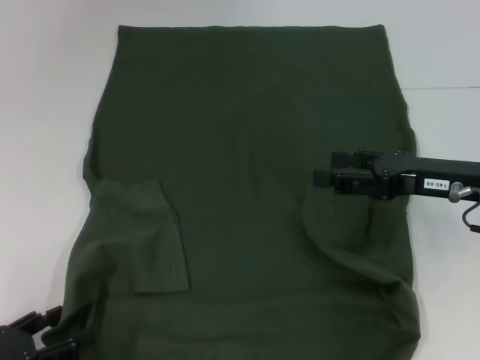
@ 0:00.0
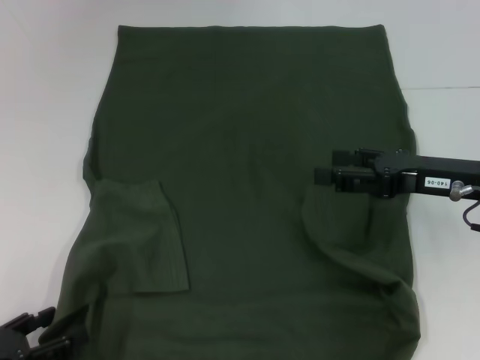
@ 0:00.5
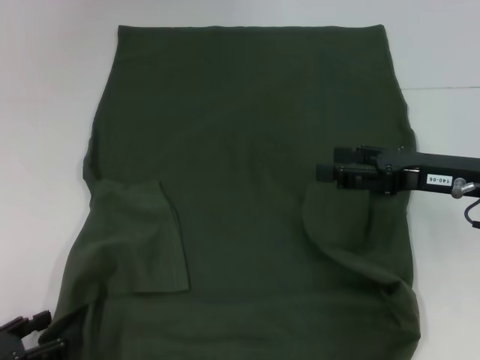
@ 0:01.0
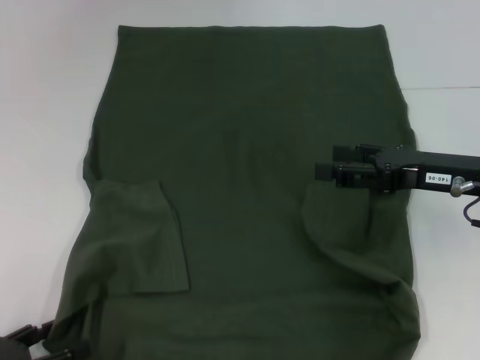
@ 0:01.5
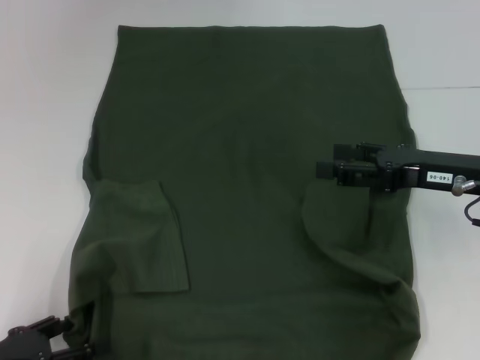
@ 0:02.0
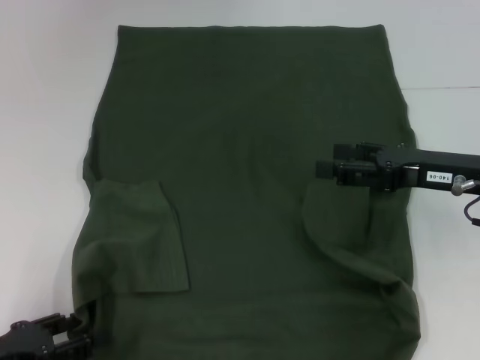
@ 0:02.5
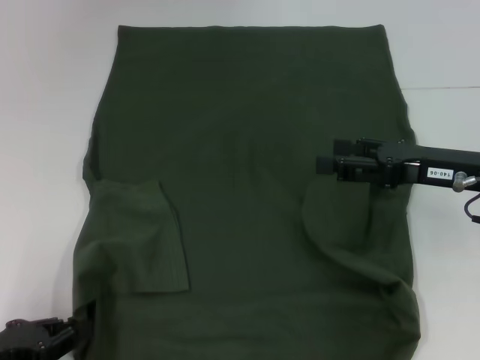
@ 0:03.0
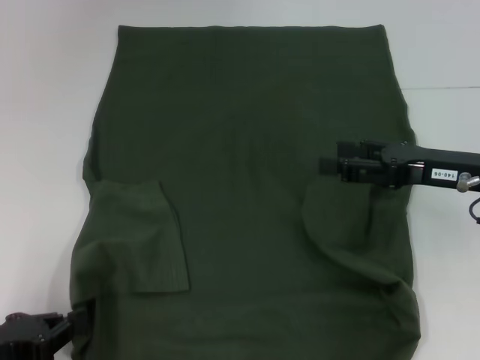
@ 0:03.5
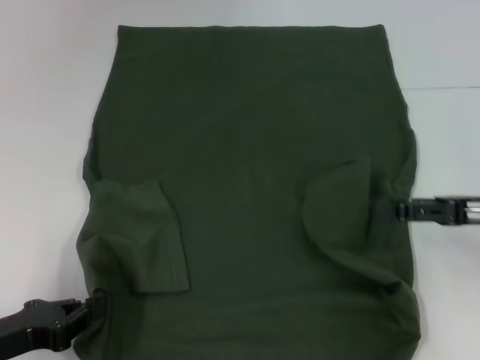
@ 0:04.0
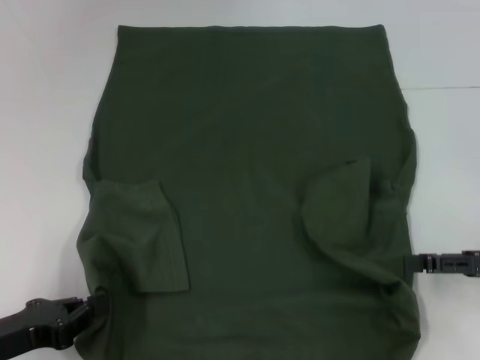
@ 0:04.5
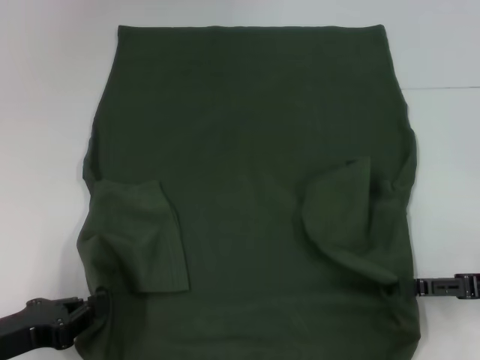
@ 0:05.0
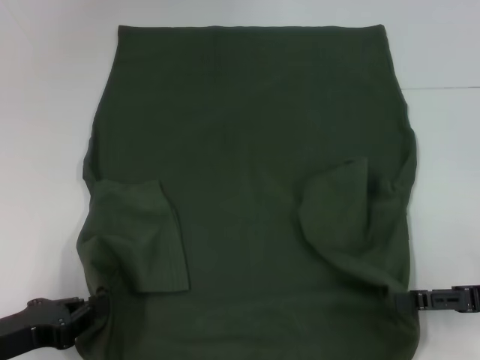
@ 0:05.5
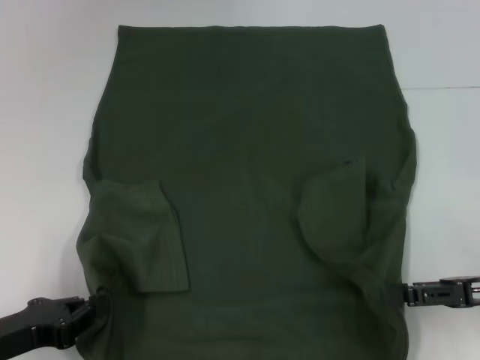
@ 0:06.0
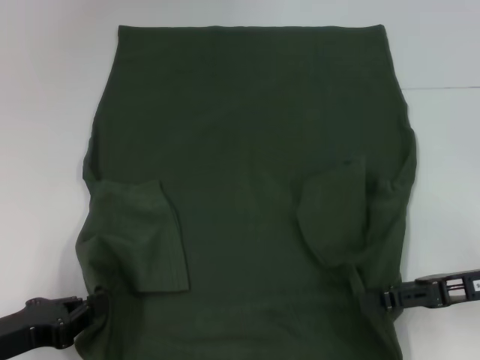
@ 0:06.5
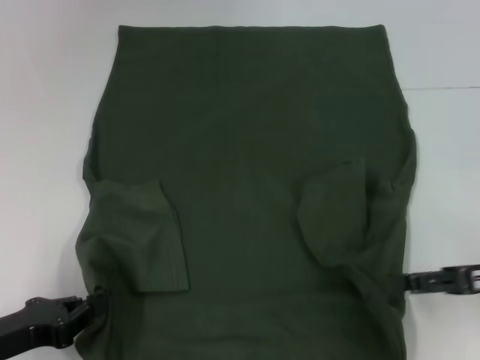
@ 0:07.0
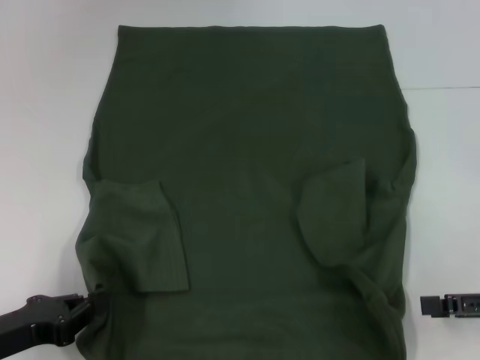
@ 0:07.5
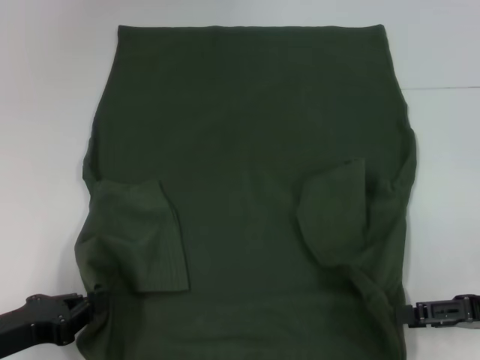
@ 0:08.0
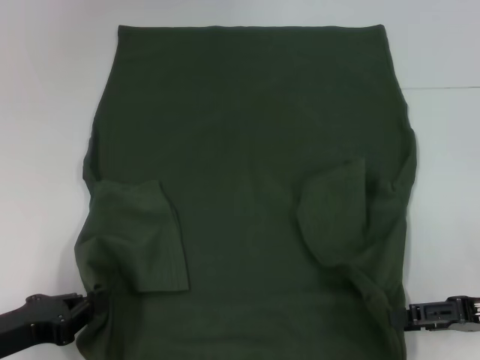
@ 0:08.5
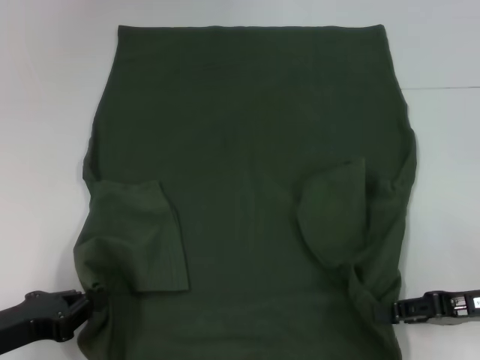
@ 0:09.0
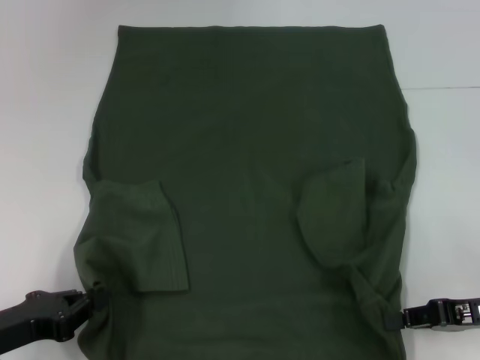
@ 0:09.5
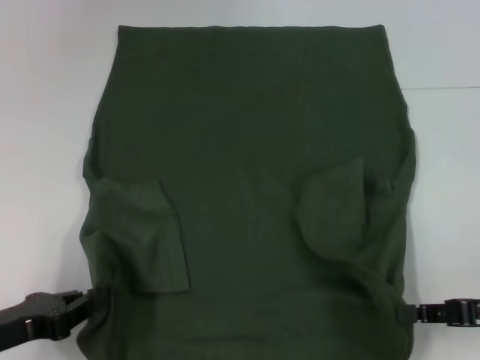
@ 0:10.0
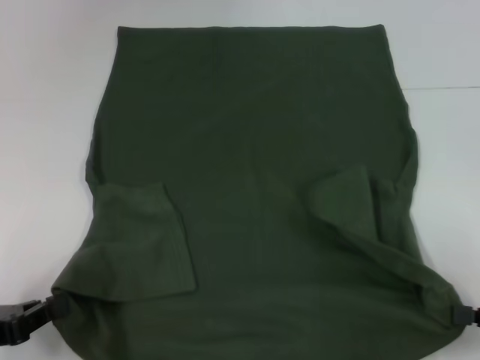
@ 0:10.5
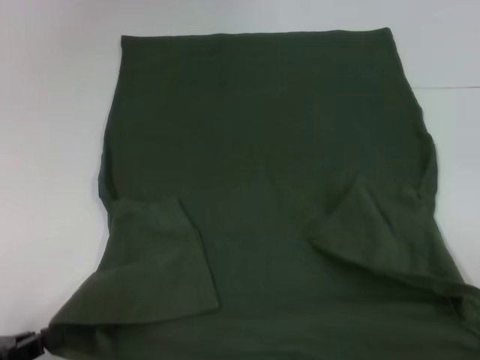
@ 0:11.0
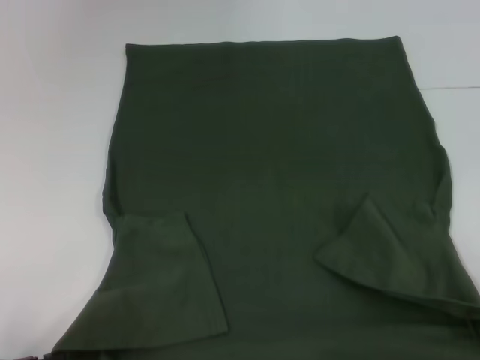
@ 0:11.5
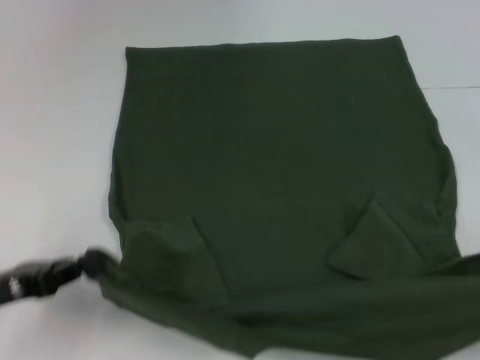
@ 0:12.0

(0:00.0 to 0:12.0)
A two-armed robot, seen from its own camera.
Step, 0:00.0 - 0:03.0: Grab the bottom left corner with your left hand.
Step, 0:03.5 - 0:09.5: Grab the bottom right corner with your right hand.
0:00.0 - 0:02.0: The grippers stay close to where they were, moving slightly.
0:02.0 - 0:04.0: The left gripper closes up. The right gripper is displaced to the right by about 5 cm.
0:04.0 - 0:06.0: The right gripper changes place by some 5 cm.
0:06.0 - 0:08.0: The grippers make only small movements.
0:08.0 - 0:10.0: The right gripper closes up.
0:10.0 - 0:12.0: The right gripper travels to the right and backward by some 10 cm; the left gripper travels backward and back again, roughly 5 cm each way.

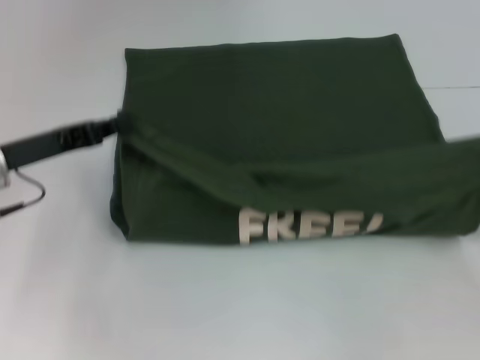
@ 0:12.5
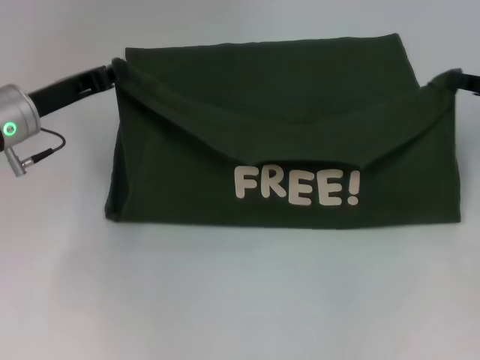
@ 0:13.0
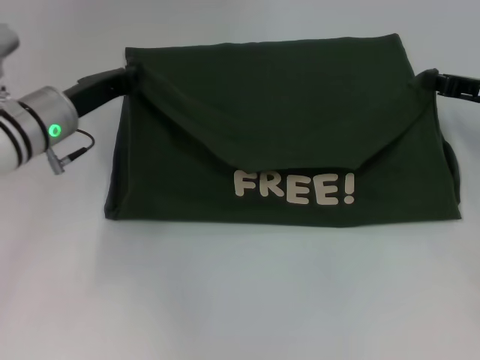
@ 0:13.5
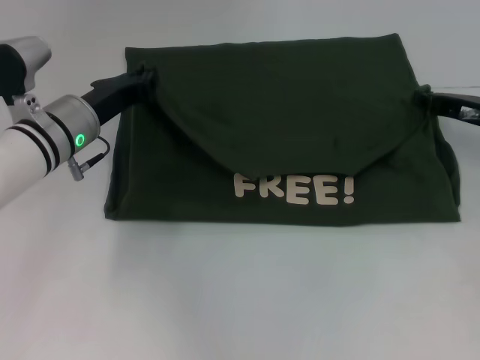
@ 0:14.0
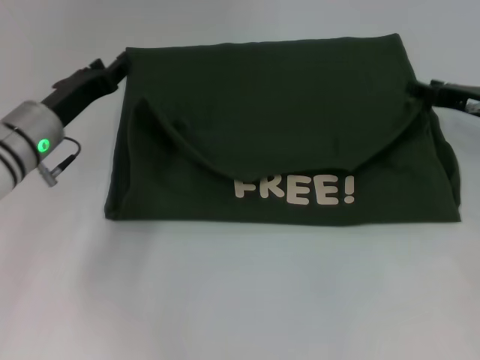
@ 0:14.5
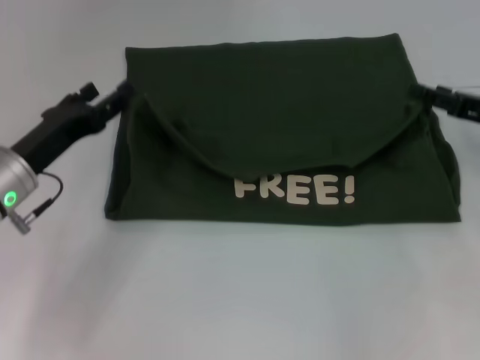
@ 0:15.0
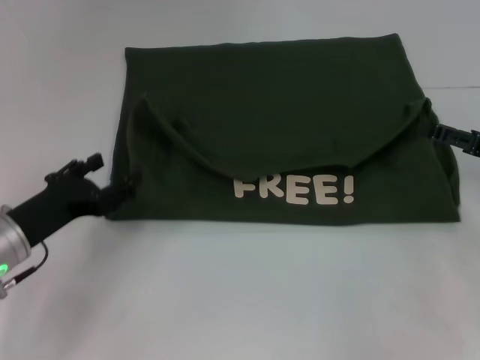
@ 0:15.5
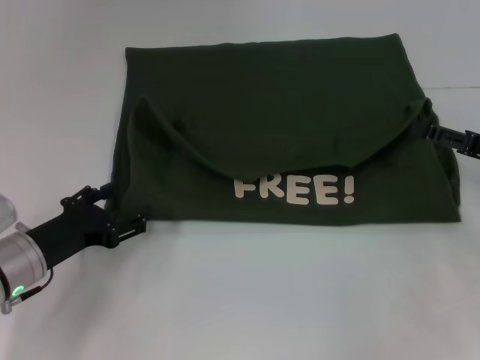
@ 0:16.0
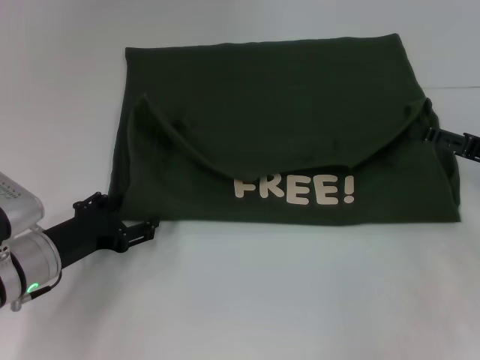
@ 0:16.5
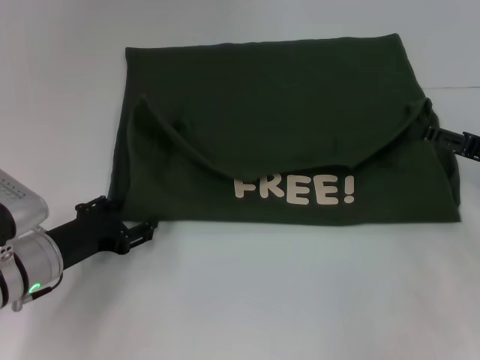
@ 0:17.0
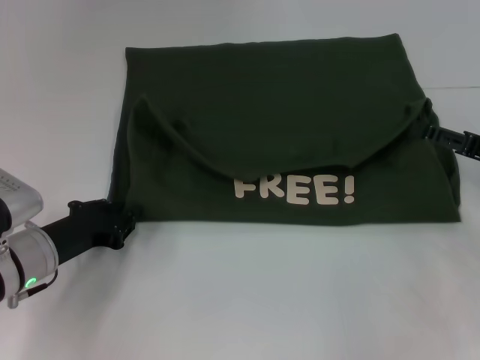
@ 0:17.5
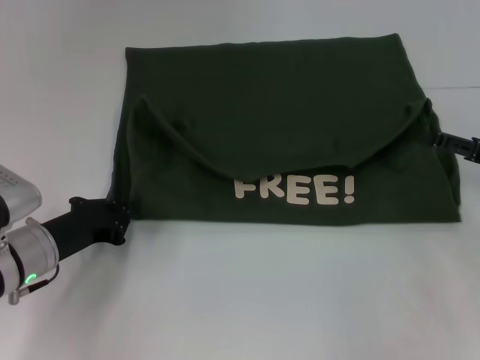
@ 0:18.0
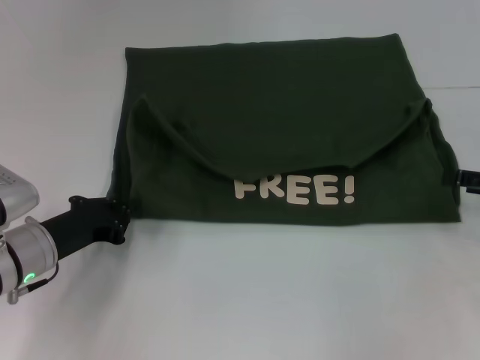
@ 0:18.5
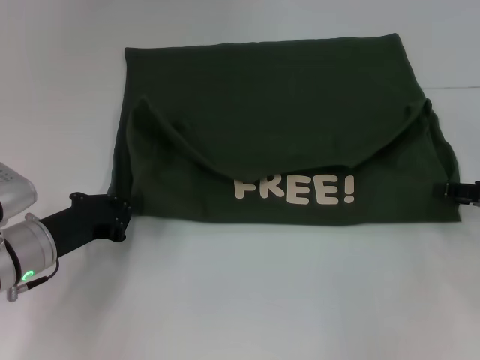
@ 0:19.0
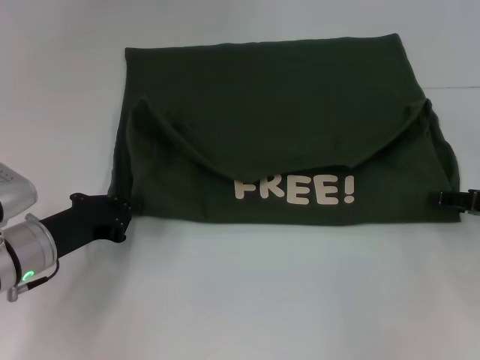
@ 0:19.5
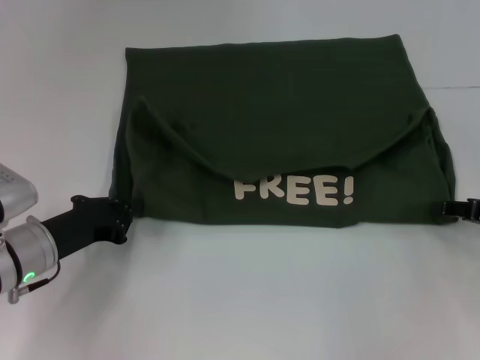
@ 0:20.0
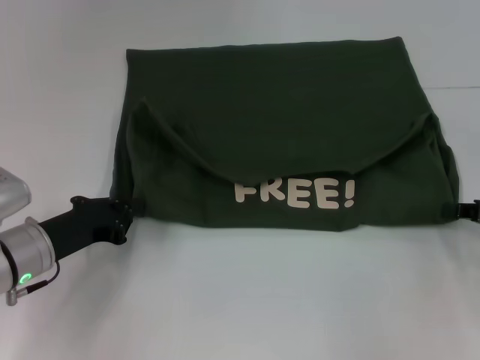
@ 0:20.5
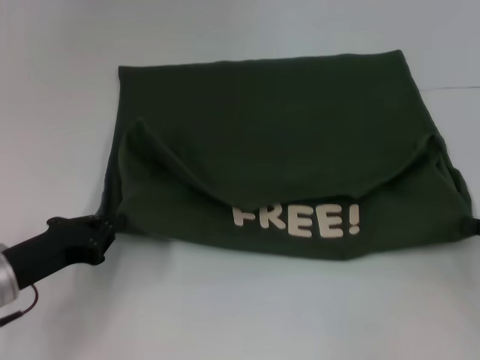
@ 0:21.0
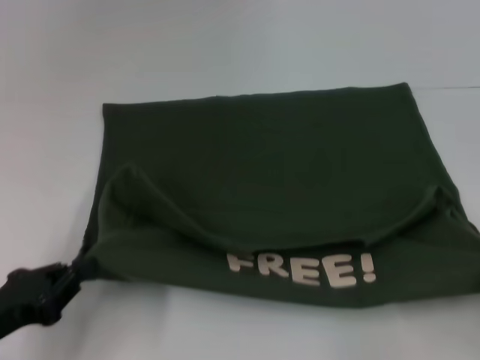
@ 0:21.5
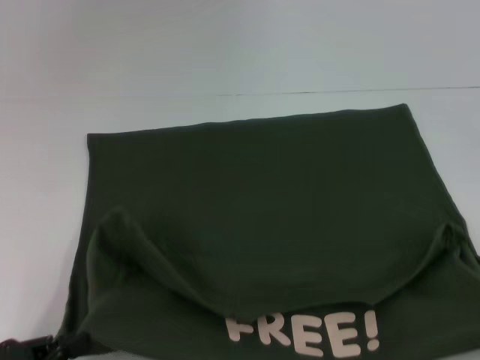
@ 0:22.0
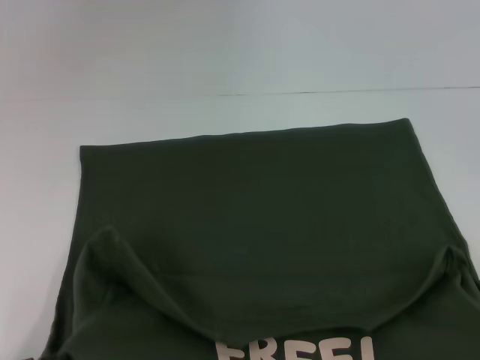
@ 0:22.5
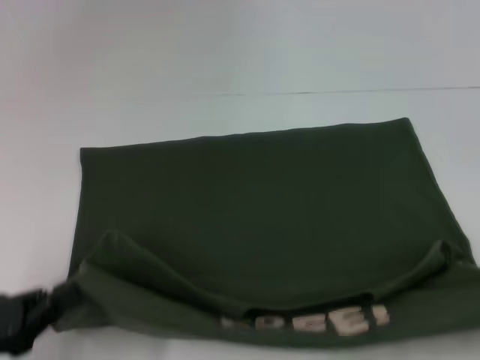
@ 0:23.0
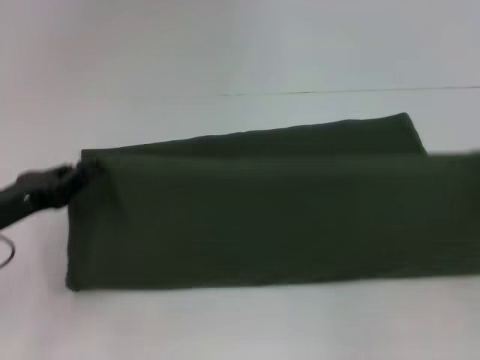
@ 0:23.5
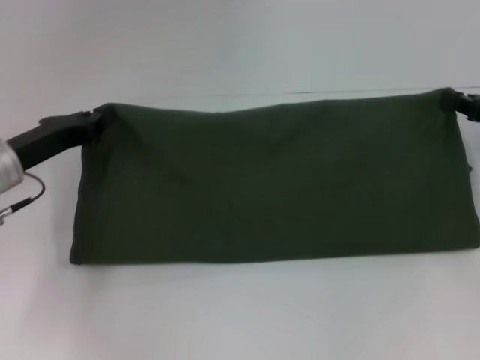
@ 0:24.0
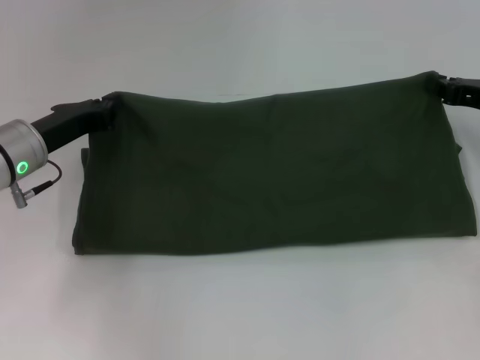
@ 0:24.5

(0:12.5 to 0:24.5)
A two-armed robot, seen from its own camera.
Step, 0:14.5 - 0:22.0: Pull the clothes with your left hand.
Step, 0:14.5 - 0:22.0: Pull the clothes with your right hand.
0:12.5 - 0:14.5: The right gripper shifts approximately 15 cm forward and to the left, and opens its fingers, while the left gripper shifts by approximately 5 cm, and opens its fingers.
0:14.5 - 0:16.5: The right gripper shifts roughly 10 cm backward, and opens up. Meanwhile the left gripper shifts approximately 10 cm backward and downward, and opens its fingers.
0:16.5 - 0:18.5: The left gripper closes.
0:18.5 - 0:20.5: The right gripper closes.
0:20.5 - 0:22.5: The left gripper moves backward and to the left, approximately 20 cm; the right gripper moves backward, roughly 20 cm.
0:22.5 - 0:24.5: Both grippers travel together forward, about 25 cm.

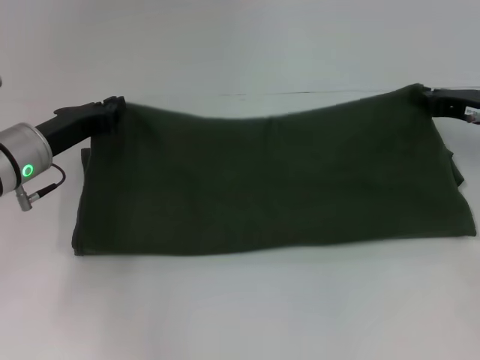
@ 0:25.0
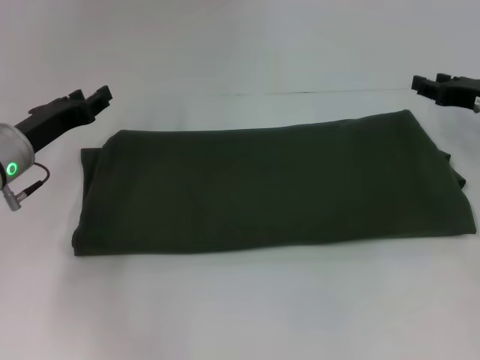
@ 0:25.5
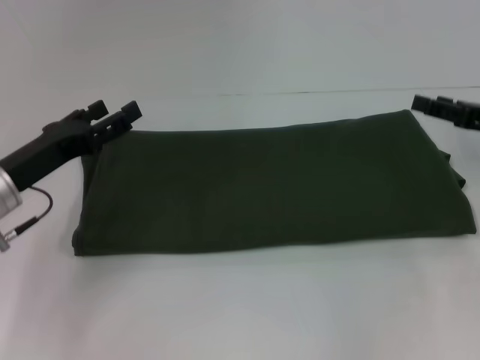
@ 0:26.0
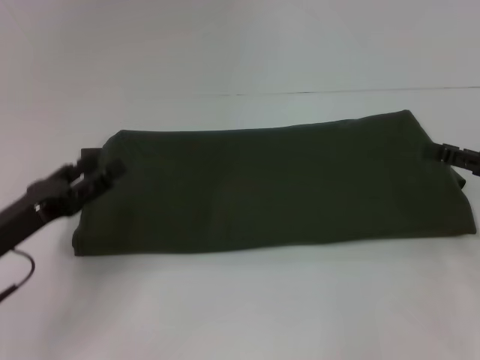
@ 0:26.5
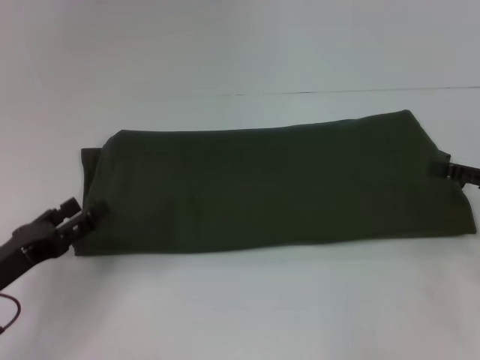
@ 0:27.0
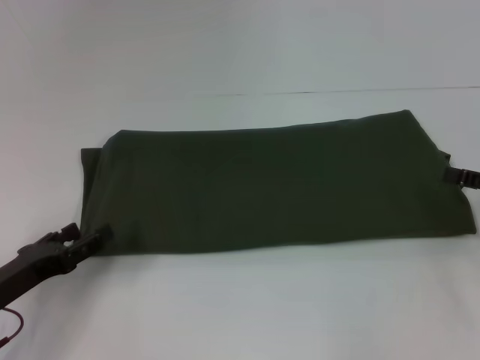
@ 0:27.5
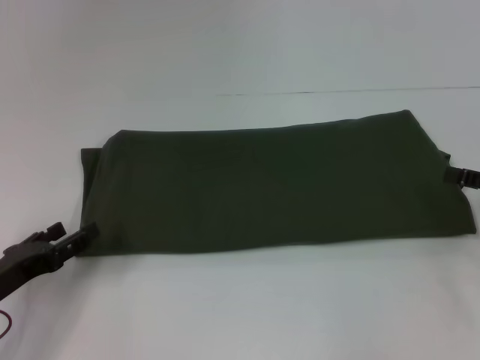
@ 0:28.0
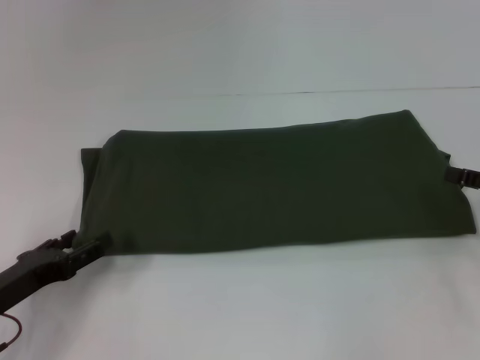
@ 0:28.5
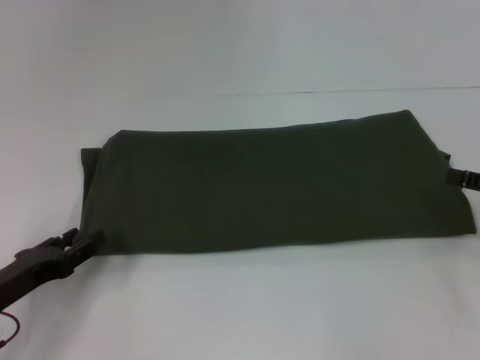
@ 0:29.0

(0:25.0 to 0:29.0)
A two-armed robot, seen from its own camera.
0:25.0 - 0:27.0: The right gripper travels backward and to the right by approximately 10 cm, and opens; the left gripper heads backward, covering approximately 15 cm, and opens.
0:27.0 - 0:29.0: The grippers stay close to where they were, moving slightly.
